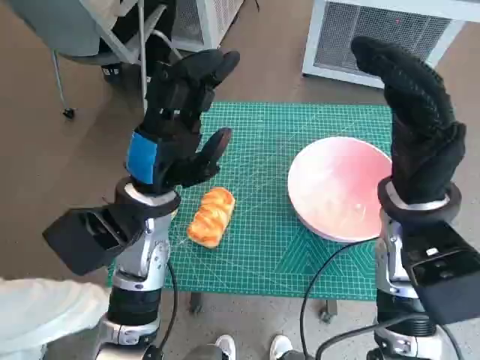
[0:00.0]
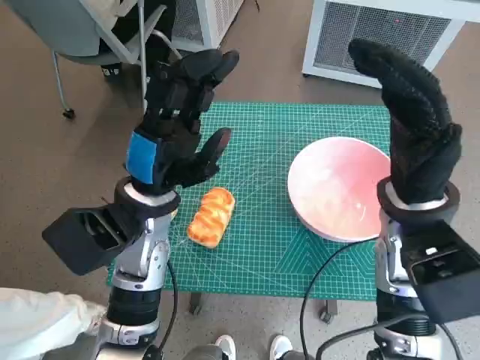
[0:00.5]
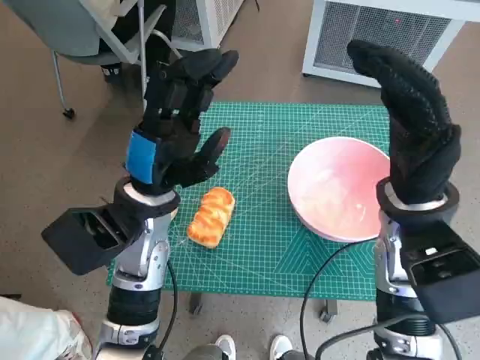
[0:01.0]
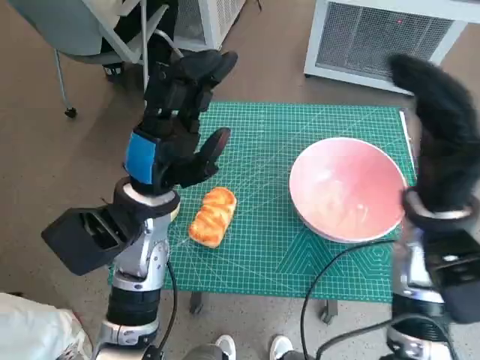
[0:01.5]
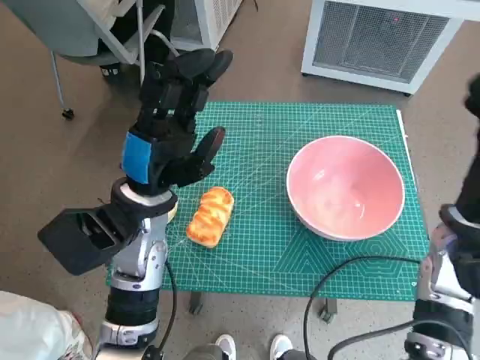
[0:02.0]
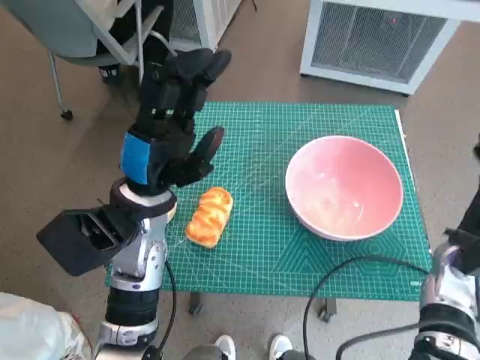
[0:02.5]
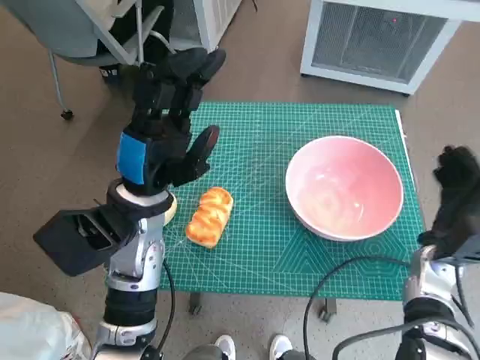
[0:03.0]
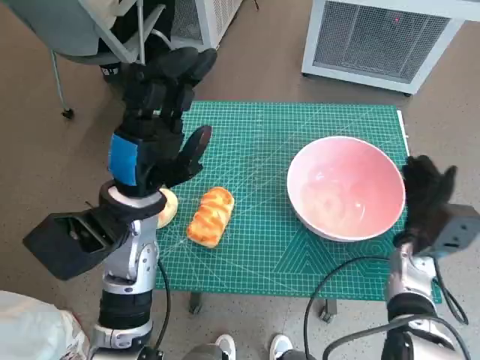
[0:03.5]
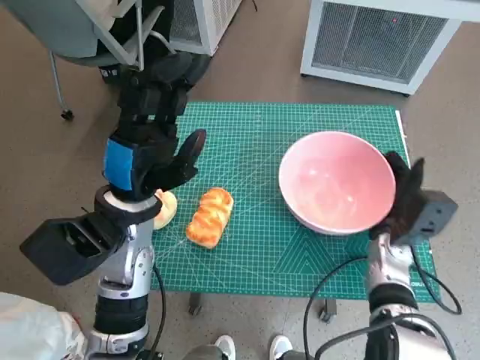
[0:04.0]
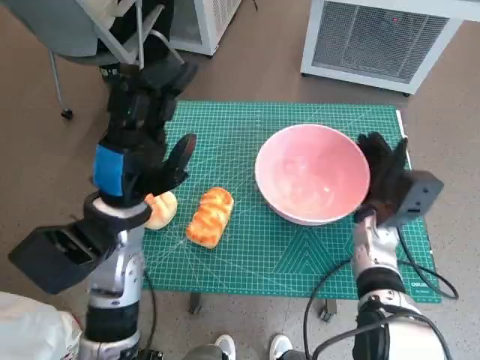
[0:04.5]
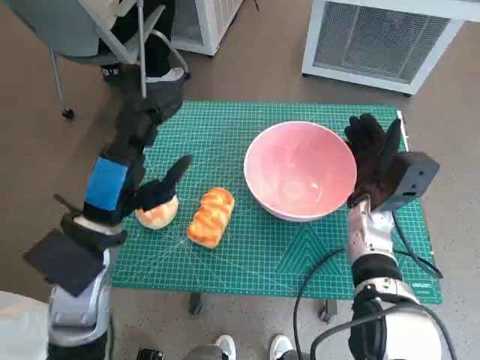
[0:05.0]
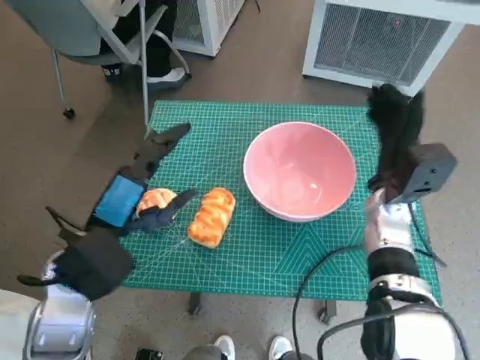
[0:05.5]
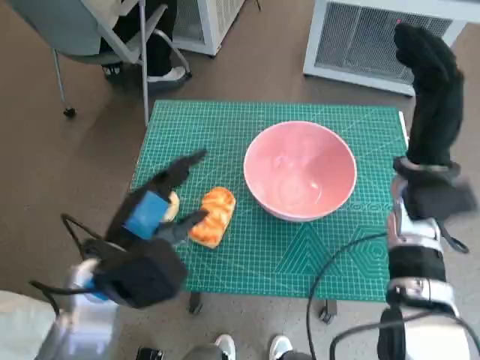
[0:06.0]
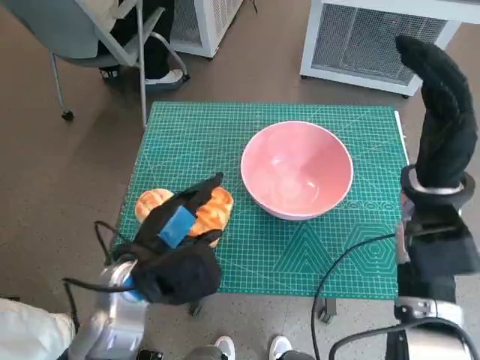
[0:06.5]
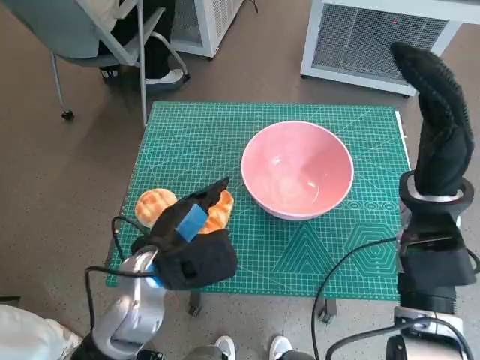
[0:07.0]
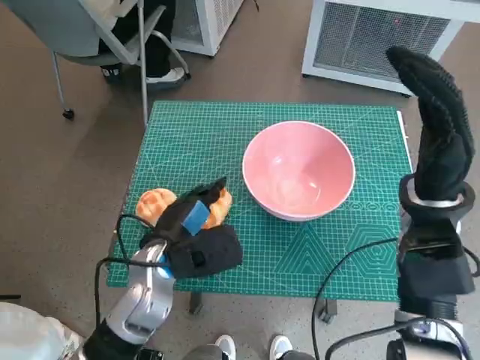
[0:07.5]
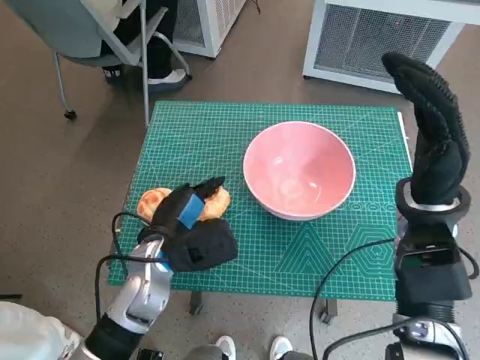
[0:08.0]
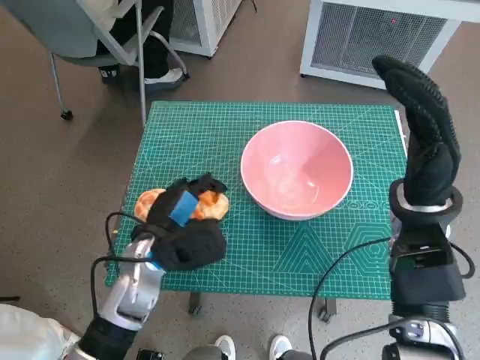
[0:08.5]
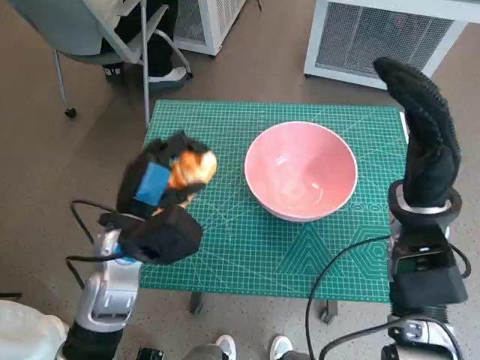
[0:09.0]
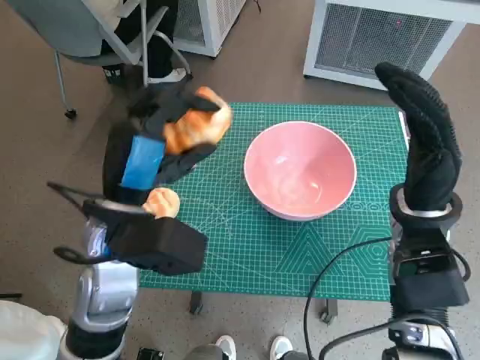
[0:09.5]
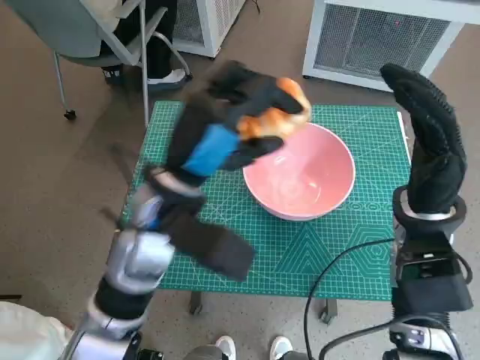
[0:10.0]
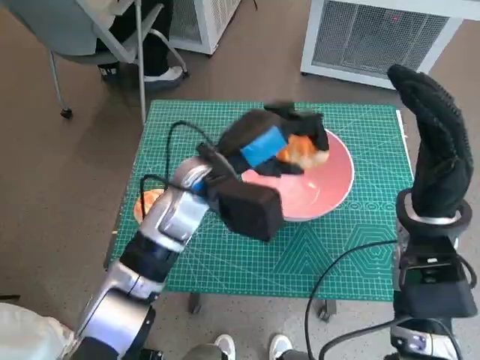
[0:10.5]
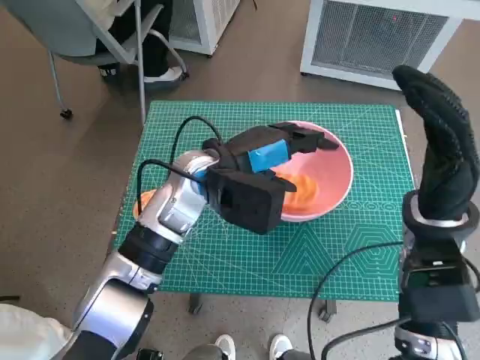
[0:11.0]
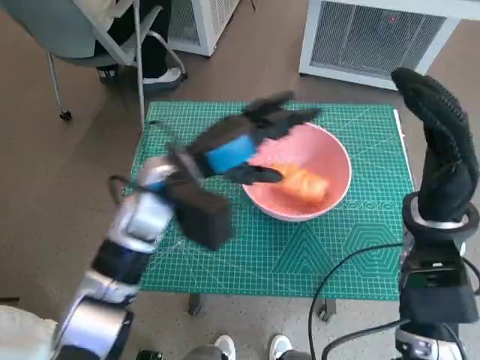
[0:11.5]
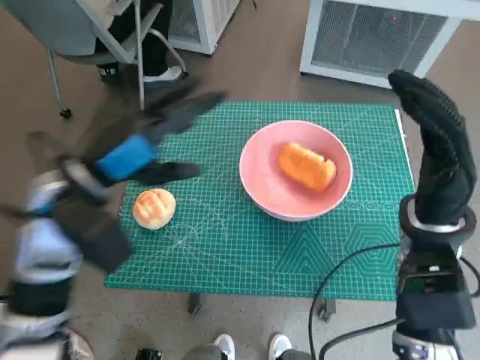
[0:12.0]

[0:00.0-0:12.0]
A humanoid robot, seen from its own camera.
Task of the whole recording: Push the bowl to the center of the table and put the bread into the bowl.
Step, 0:00.0 to 0:05.5: Move the pink bowl to the center of table with right hand.
Step, 0:06.0 to 0:07.5: Grasp the long bread with left hand.
Step, 0:08.0 to 0:11.0: Place the long bread in pink bowl with left hand.
0:02.0 to 0:04.0: The right hand is displaced downward by some 10 cm.
0:04.0 to 0:06.0: The right hand moves upward, roughly 15 cm, while the left hand is displaced backward by approximately 5 cm.
0:06.0 to 0:08.0: The left hand travels downward and forward by some 10 cm.
0:08.0 to 0:10.0: The left hand travels upward by roughly 15 cm.
0:10.0 to 0:12.0: The left hand goes about 10 cm to the left.

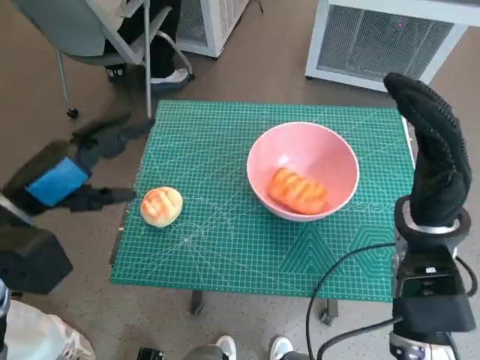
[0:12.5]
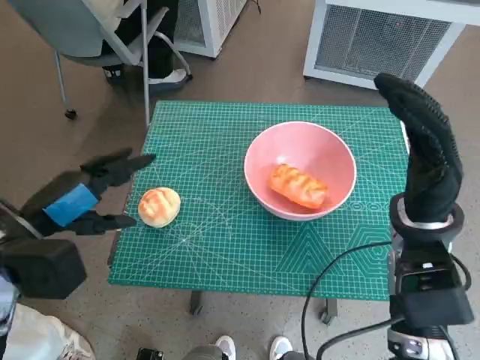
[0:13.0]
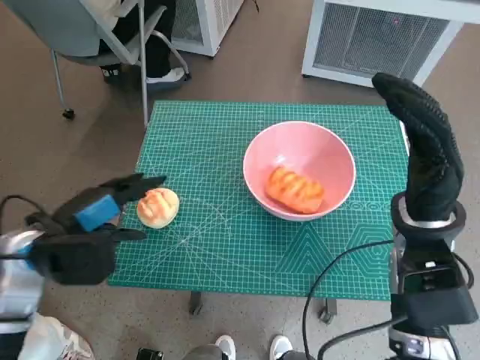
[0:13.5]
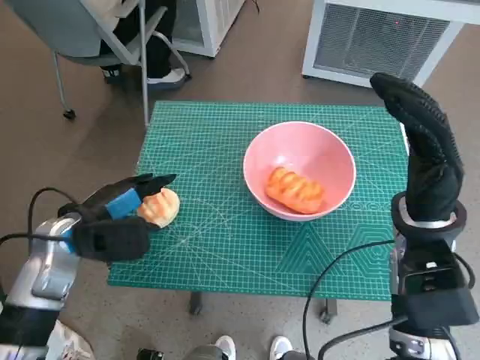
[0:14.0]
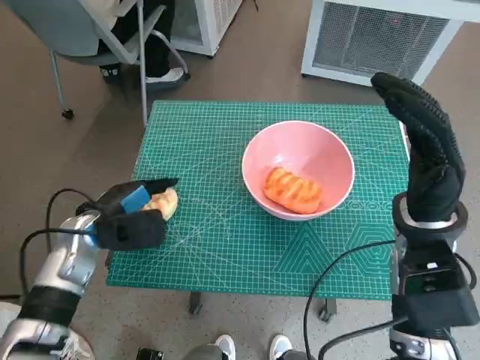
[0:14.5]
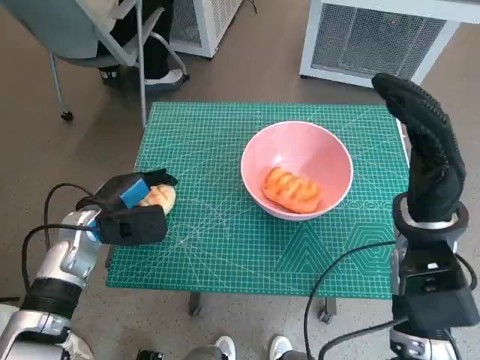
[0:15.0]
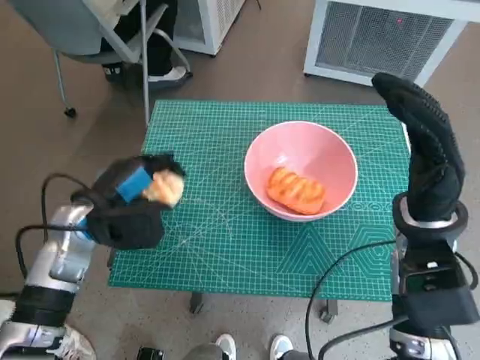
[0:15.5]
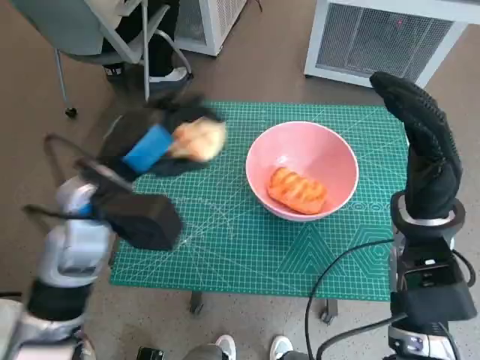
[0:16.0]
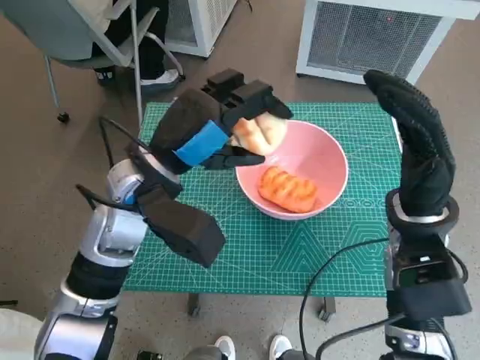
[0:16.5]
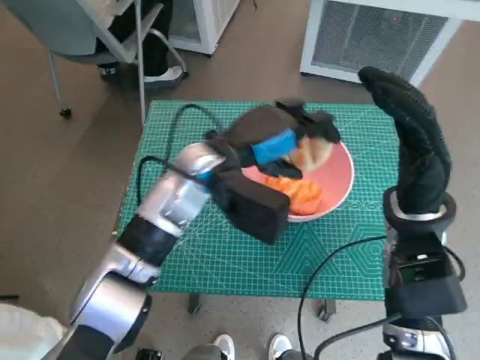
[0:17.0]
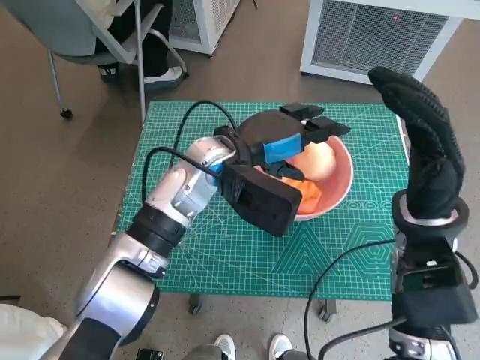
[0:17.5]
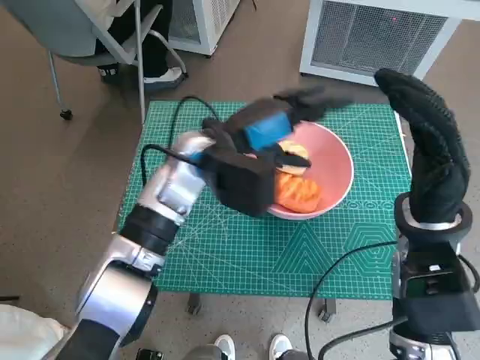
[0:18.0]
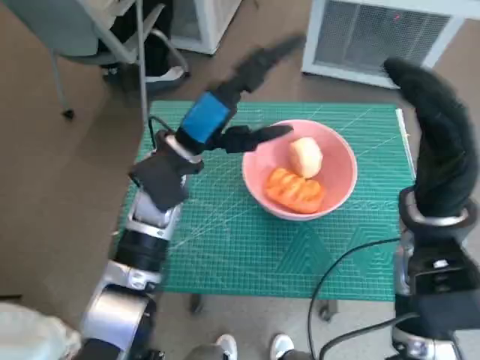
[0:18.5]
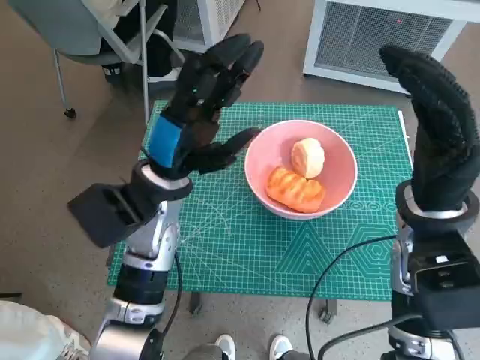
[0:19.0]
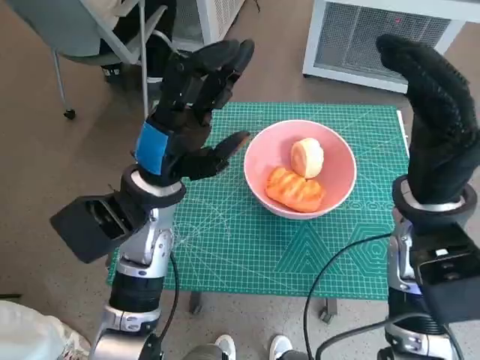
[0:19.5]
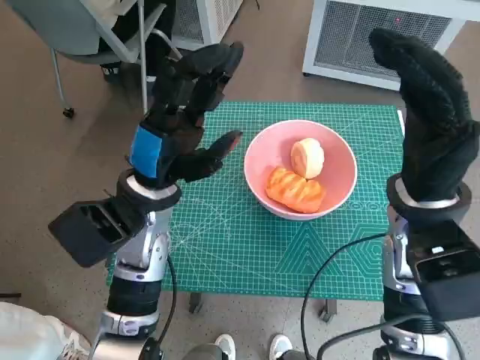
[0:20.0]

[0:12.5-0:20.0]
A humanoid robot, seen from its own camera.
Task of the whole recording: Push the bowl to the center of the table and put the bread into the bowl.
Step, 0:12.5 to 0:14.5: Grasp the round bread with left hand.
Step, 0:15.0 to 0:17.5: Place the round bread in pink bowl with left hand.
0:12.5 to 0:14.5: The left hand heads downward, covering roughly 15 cm.
0:14.5 to 0:16.5: The left hand is displaced upward and to the right by roughly 20 cm.
0:16.5 to 0:18.0: The left hand travels to the right and forward by about 10 cm.
0:18.0 to 0:20.0: The left hand heads to the left and backward, covering roughly 10 cm.
